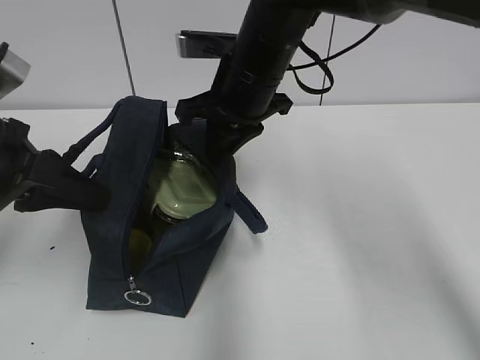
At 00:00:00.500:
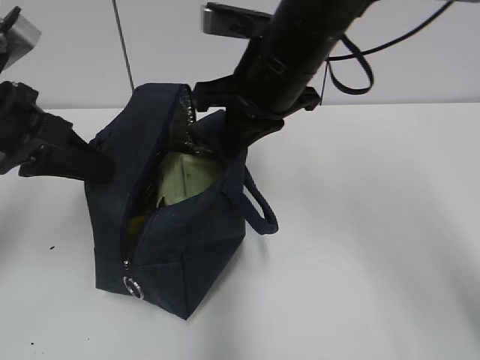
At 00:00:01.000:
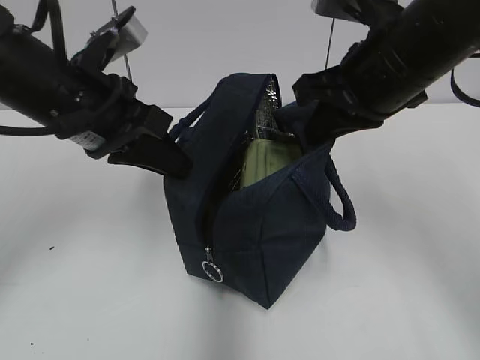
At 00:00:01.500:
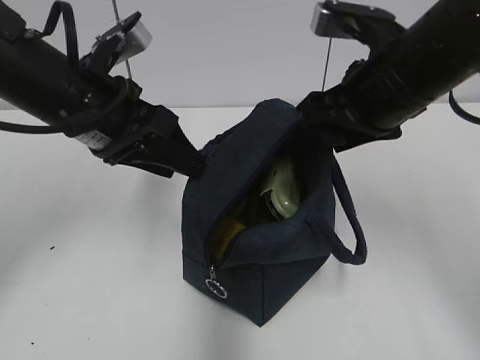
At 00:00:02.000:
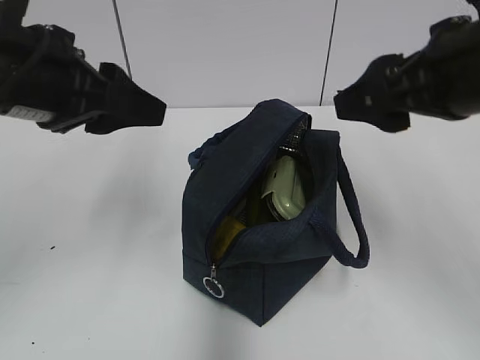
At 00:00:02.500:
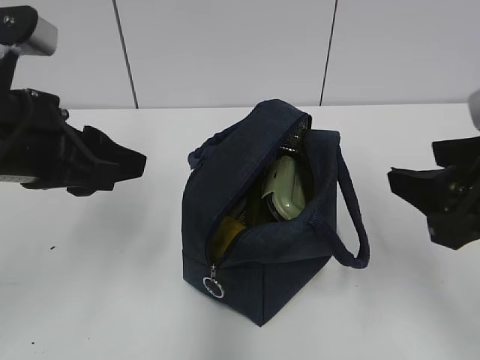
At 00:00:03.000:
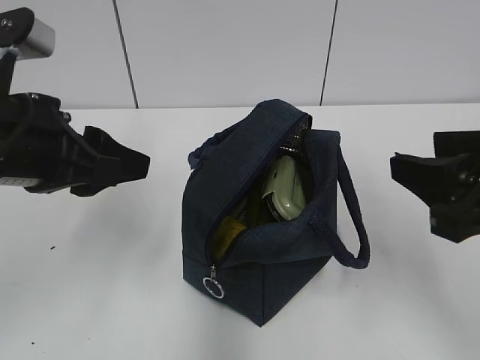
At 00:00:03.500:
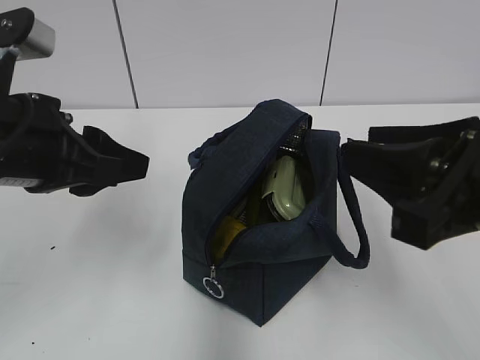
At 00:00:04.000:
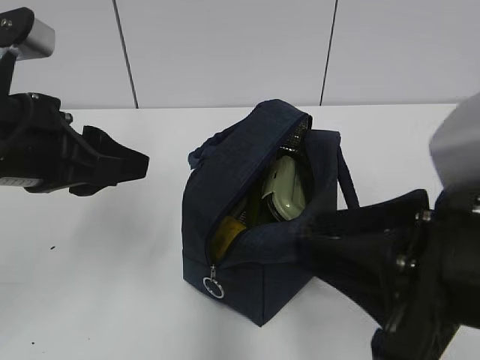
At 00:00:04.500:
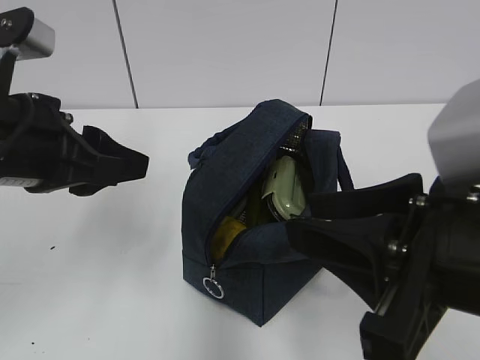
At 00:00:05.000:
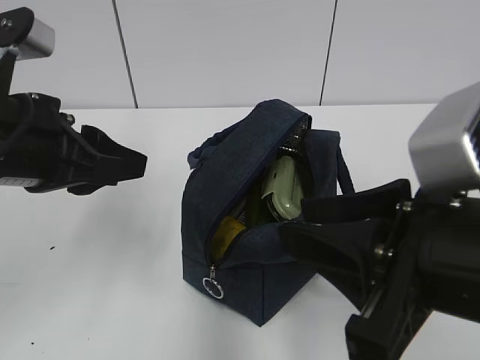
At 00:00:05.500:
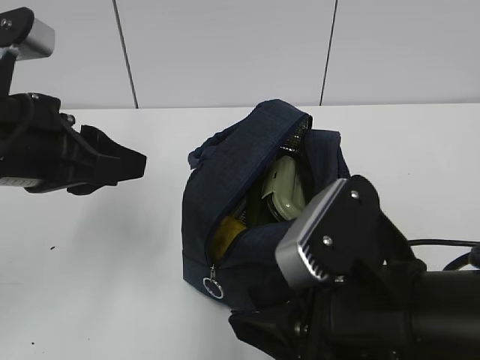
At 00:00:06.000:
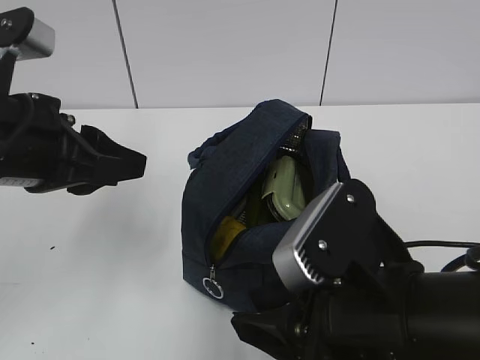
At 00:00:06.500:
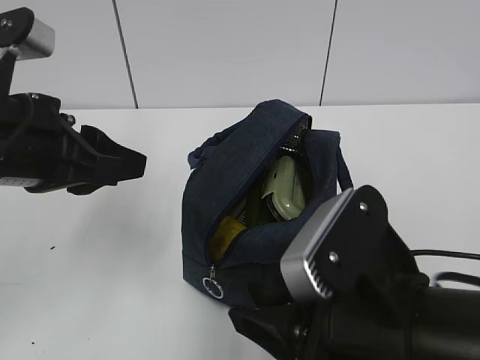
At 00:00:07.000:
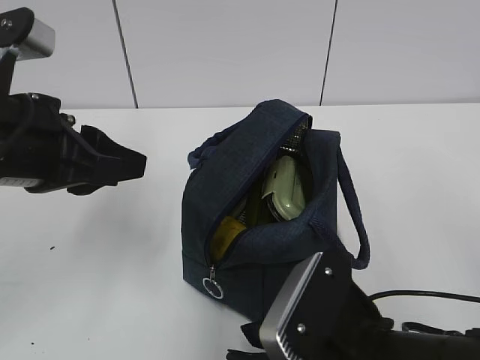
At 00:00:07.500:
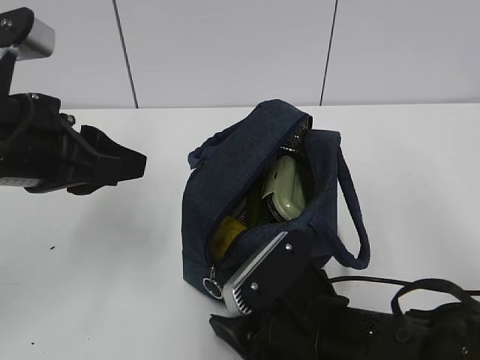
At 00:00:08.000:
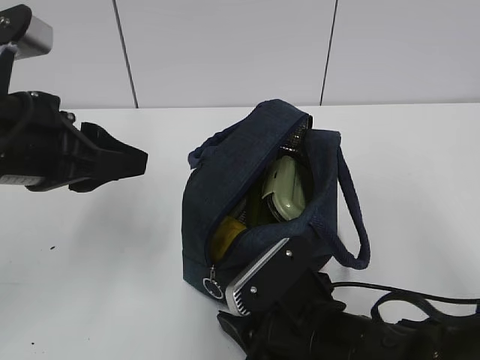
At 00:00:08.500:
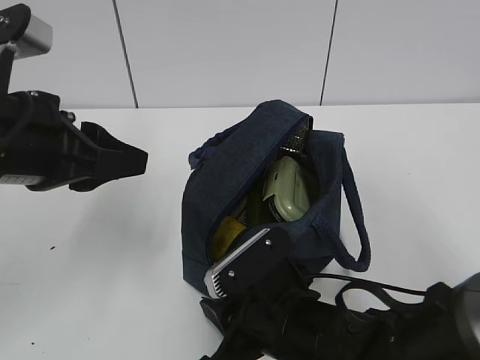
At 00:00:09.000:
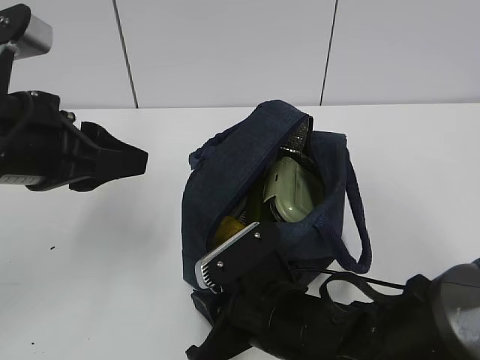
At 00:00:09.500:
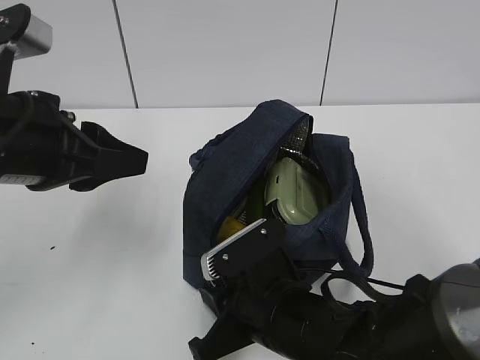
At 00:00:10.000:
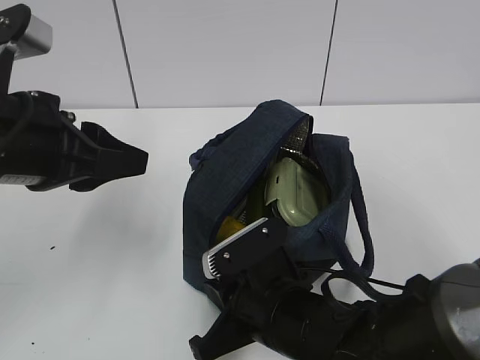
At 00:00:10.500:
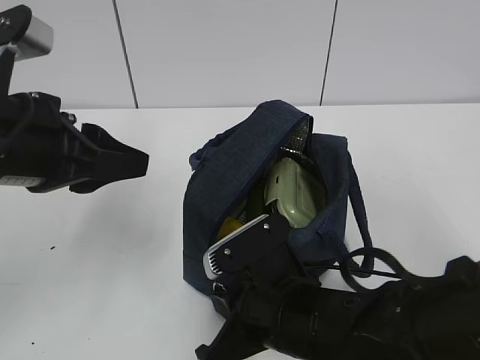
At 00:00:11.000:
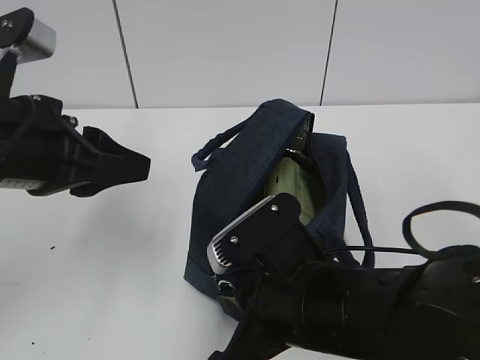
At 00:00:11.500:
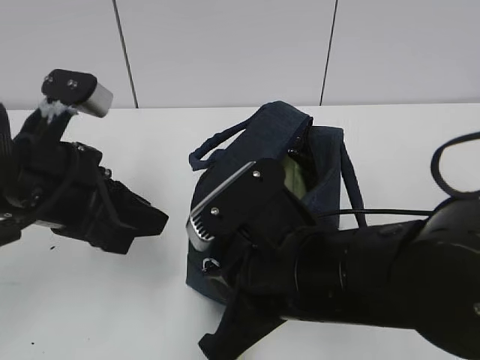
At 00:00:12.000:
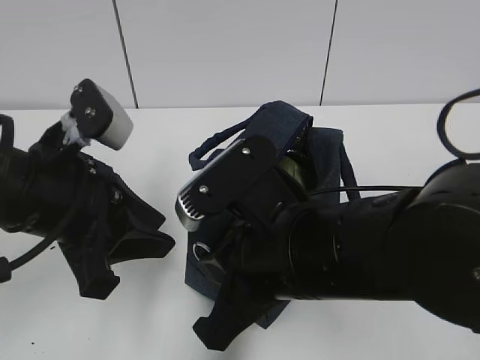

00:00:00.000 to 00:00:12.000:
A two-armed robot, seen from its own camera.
00:00:00.000 to 00:00:02.000: The left gripper travels upward and to the right by some 10 cm, and opens its fingers. The right gripper is displaced backward, to the right and upward by approximately 20 cm, and opens up.
00:00:02.000 to 00:00:04.000: The right gripper travels backward by some 10 cm, and closes.
00:00:04.000 to 00:00:06.000: The right gripper goes approximately 5 cm downward.
00:00:06.000 to 00:00:08.000: The right gripper is displaced downward by about 10 cm.
00:00:08.000 to 00:00:10.000: The right gripper closes up.
00:00:10.000 to 00:00:12.000: The right gripper moves upward, about 10 cm.

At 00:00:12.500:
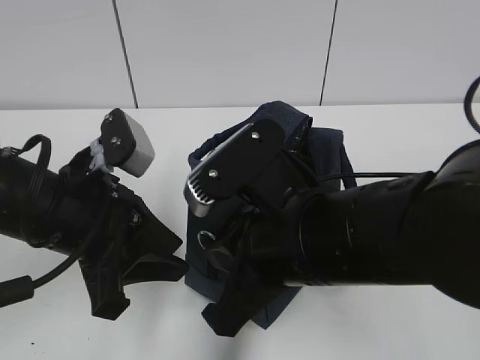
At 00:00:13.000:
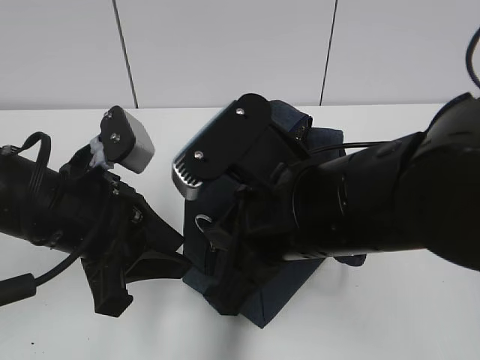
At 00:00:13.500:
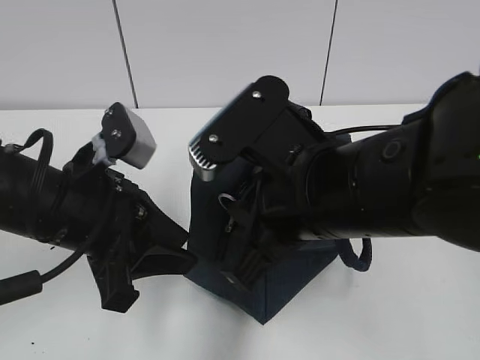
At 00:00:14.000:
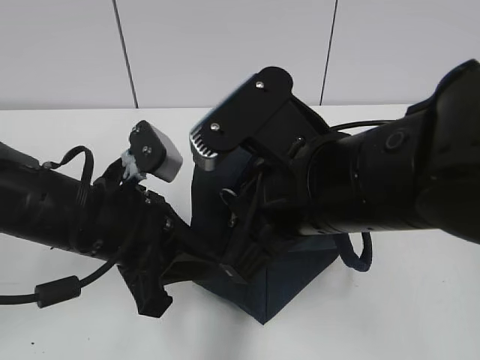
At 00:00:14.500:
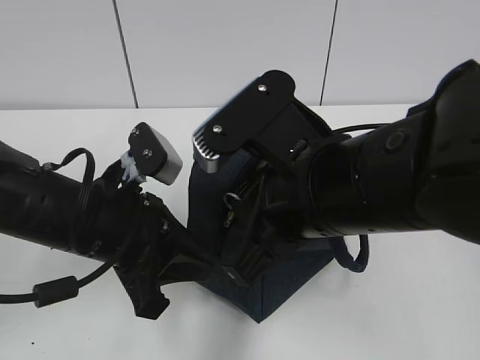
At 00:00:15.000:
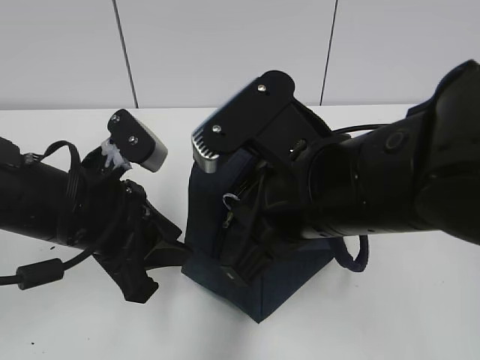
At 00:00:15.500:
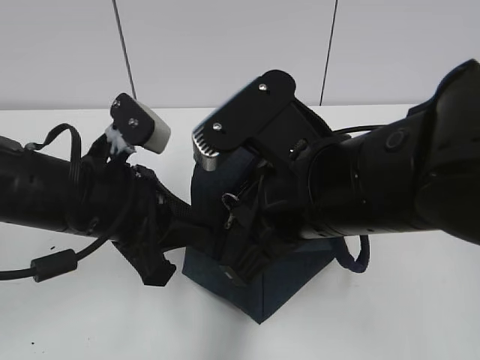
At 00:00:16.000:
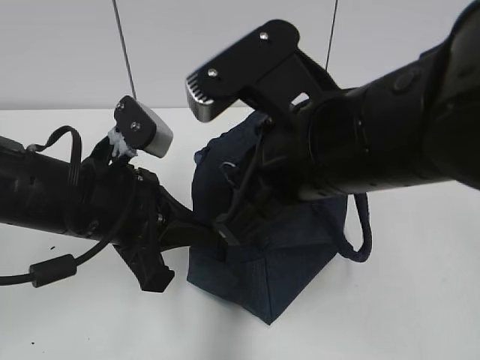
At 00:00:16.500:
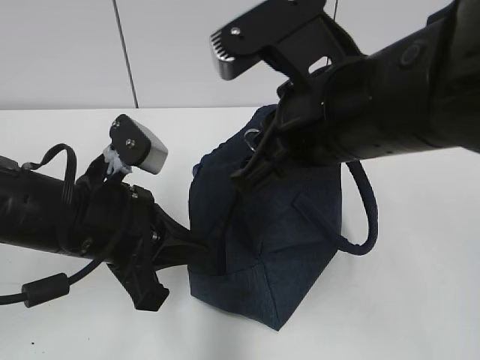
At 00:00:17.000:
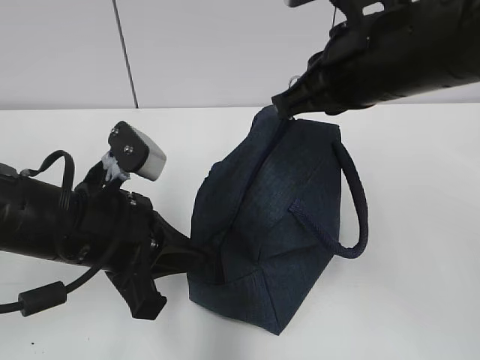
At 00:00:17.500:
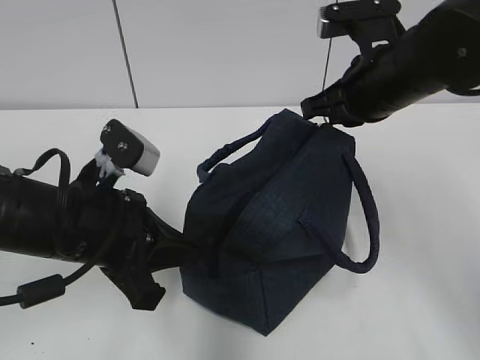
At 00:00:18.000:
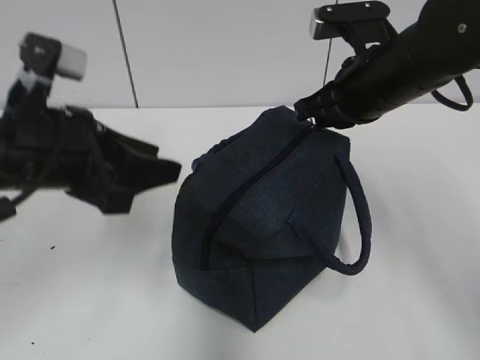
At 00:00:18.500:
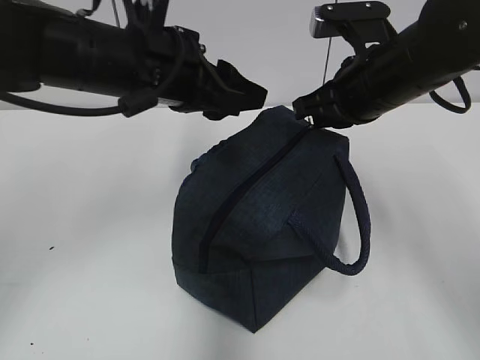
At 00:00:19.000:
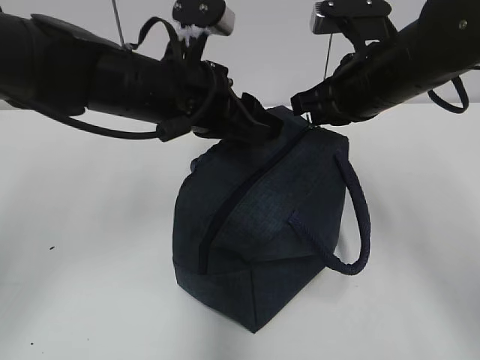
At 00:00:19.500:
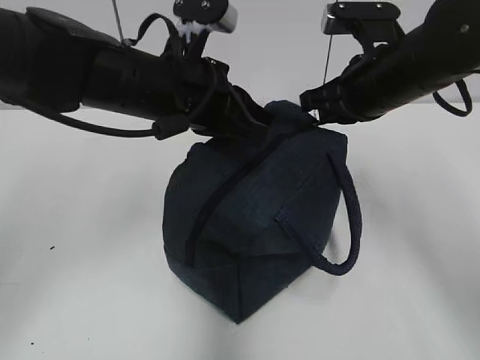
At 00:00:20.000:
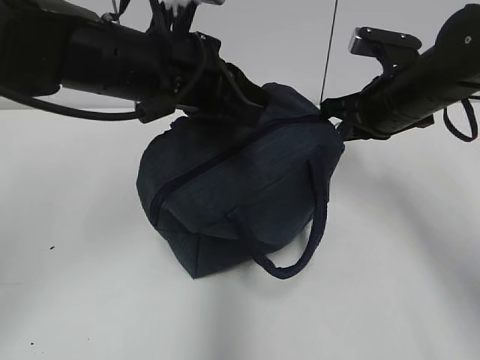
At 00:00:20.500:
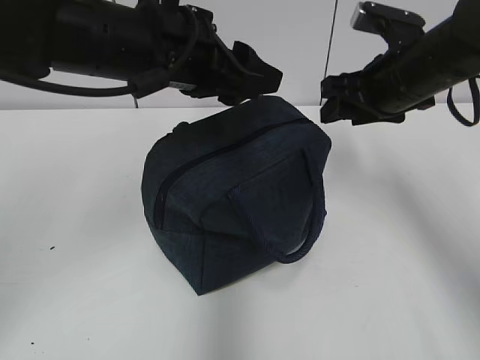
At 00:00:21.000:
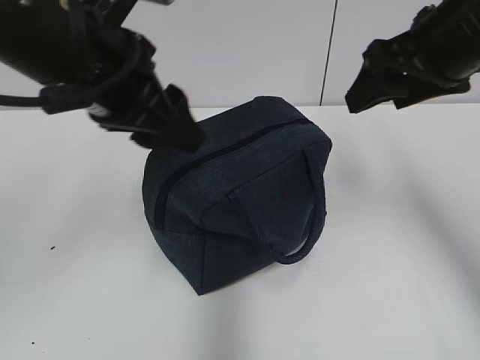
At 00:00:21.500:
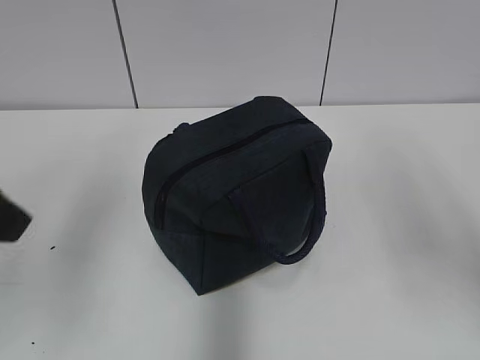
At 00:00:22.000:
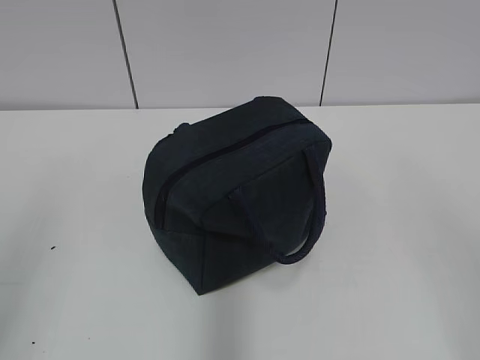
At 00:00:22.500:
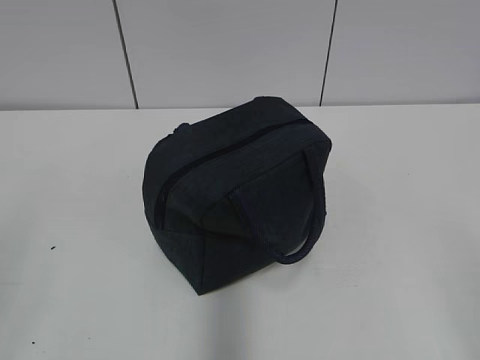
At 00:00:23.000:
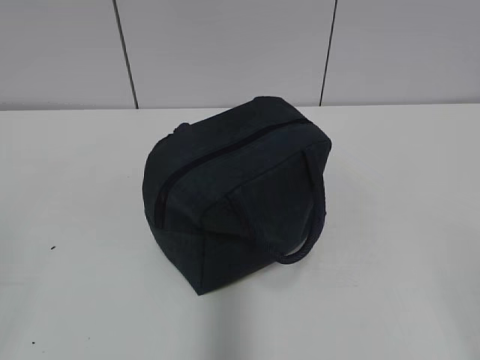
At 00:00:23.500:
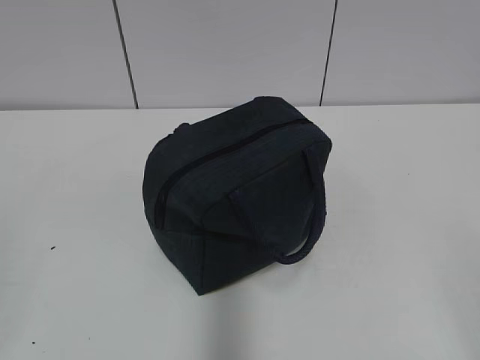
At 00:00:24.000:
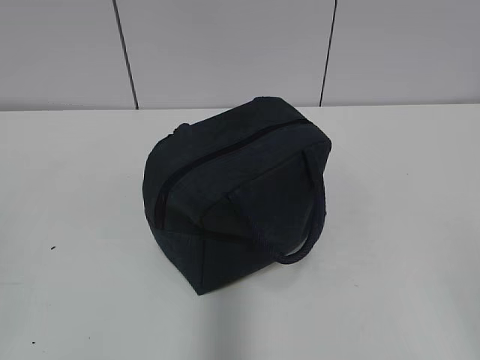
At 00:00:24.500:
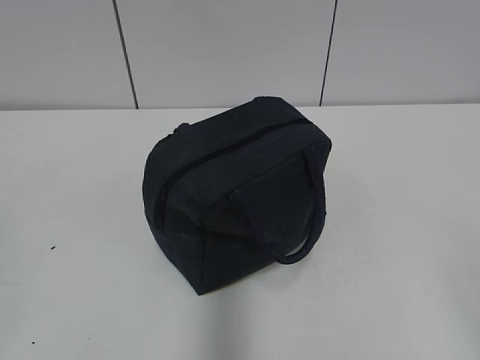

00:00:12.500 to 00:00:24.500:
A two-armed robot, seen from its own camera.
00:00:14.500 to 00:00:16.500: The left gripper closes. Meanwhile the right gripper changes place by about 5 cm.
00:00:16.500 to 00:00:18.500: The right gripper shifts some 15 cm forward and to the right, while the left gripper moves forward and upward, approximately 15 cm, and opens its fingers.
00:00:18.500 to 00:00:20.500: The left gripper closes, then opens again; the right gripper opens its fingers.
00:00:20.500 to 00:00:22.500: The right gripper goes about 40 cm backward; the left gripper shifts about 35 cm backward and to the left.

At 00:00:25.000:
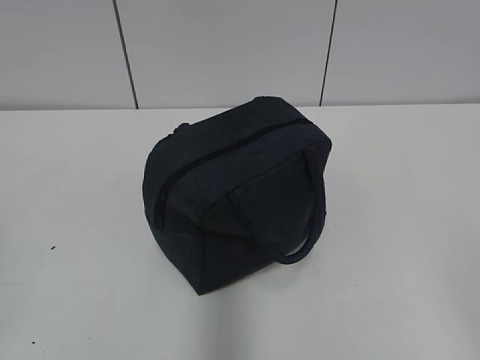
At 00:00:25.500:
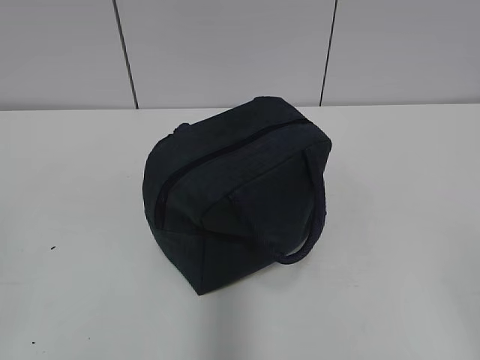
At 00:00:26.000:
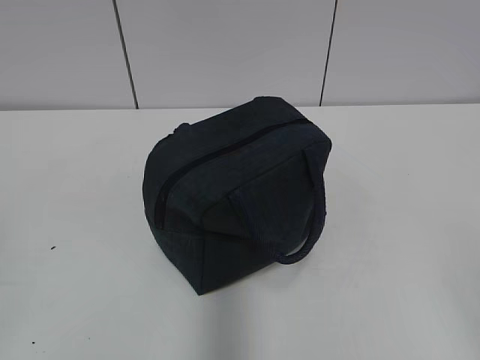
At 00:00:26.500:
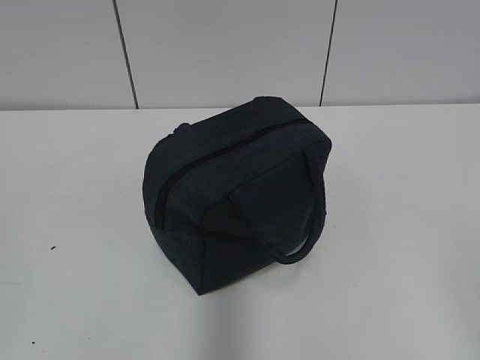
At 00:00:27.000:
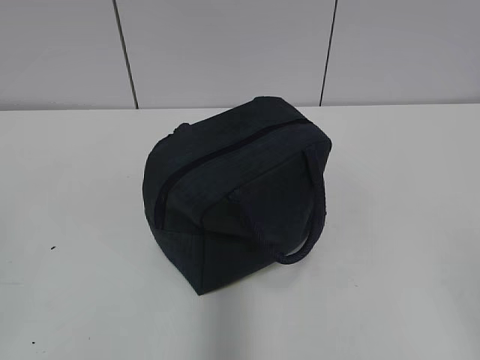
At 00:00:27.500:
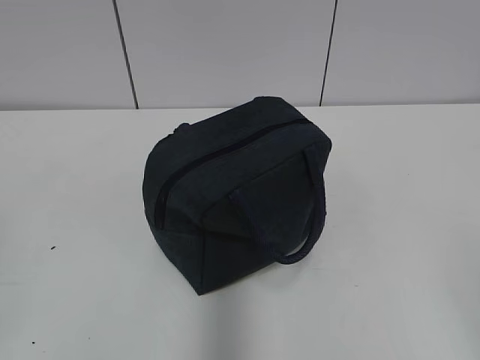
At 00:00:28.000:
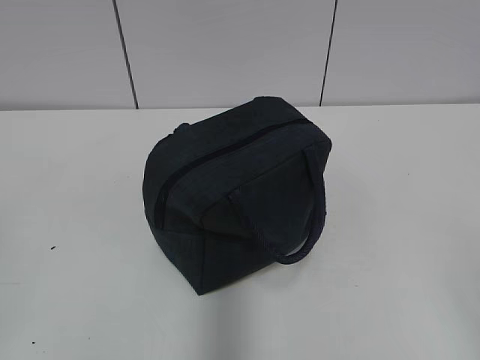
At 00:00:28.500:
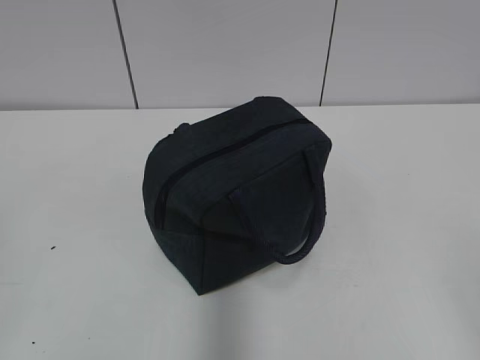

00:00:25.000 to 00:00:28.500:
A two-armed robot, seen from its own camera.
00:00:25.000 to 00:00:28.500: The two grippers keep their place.
